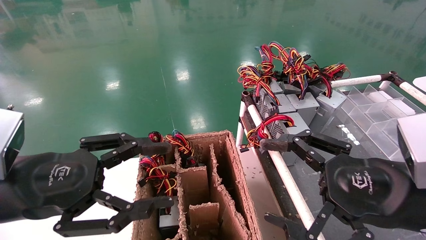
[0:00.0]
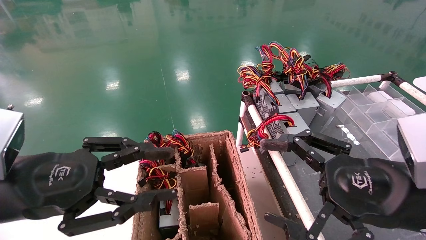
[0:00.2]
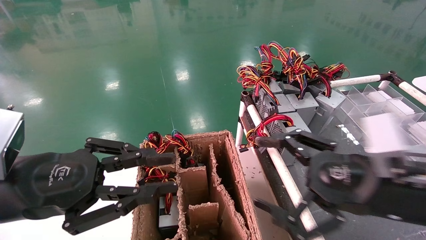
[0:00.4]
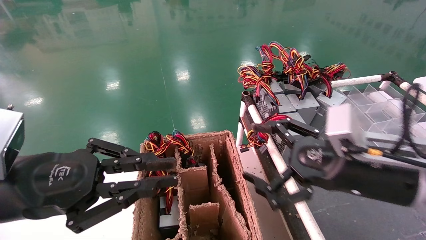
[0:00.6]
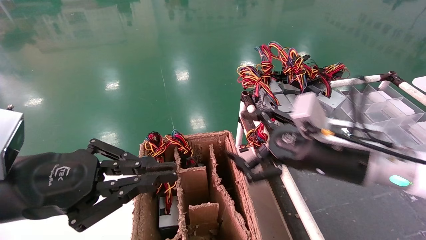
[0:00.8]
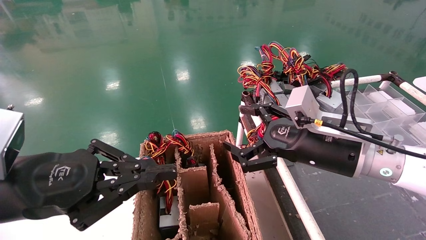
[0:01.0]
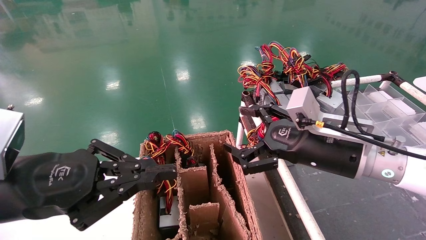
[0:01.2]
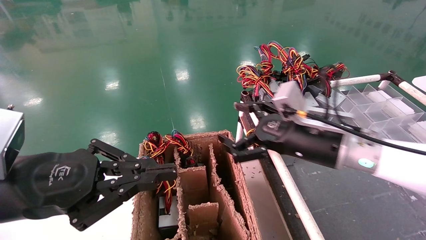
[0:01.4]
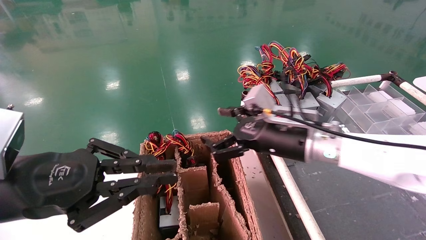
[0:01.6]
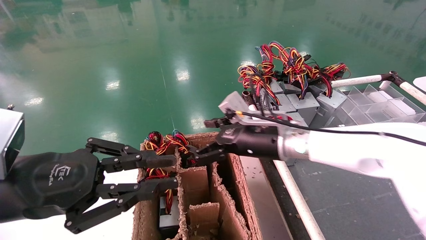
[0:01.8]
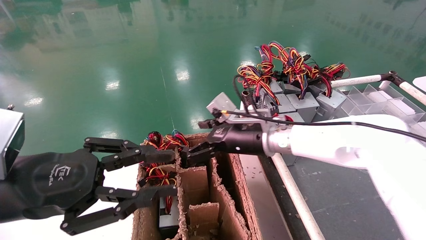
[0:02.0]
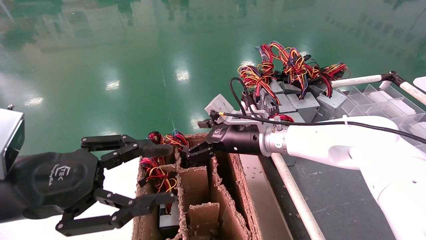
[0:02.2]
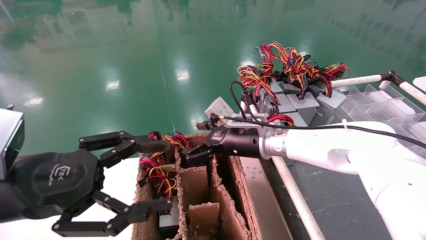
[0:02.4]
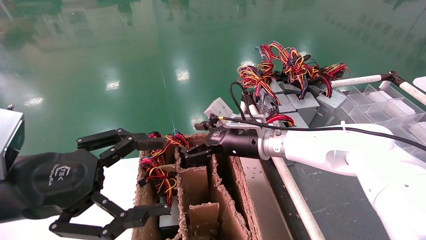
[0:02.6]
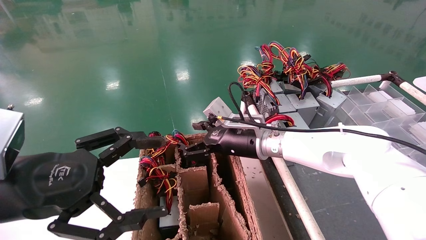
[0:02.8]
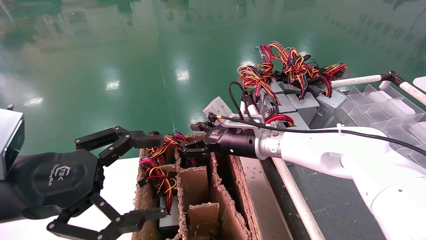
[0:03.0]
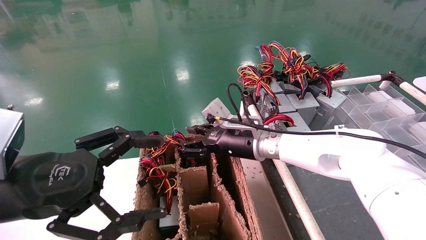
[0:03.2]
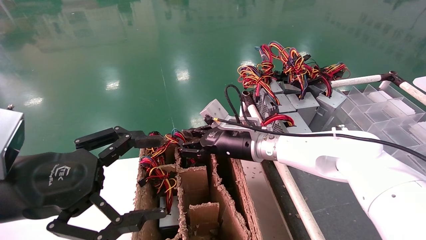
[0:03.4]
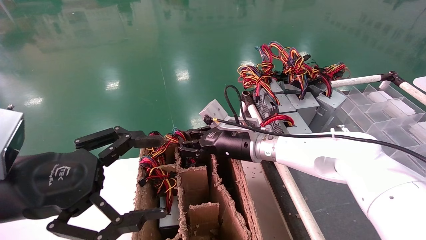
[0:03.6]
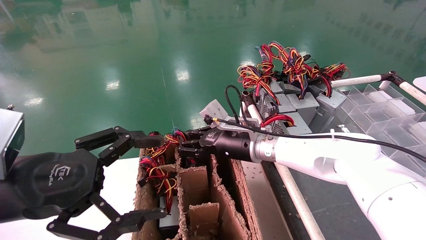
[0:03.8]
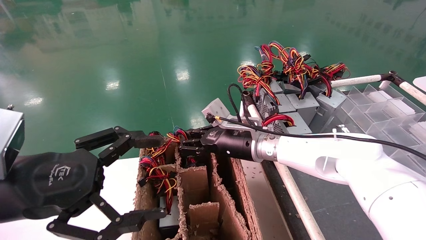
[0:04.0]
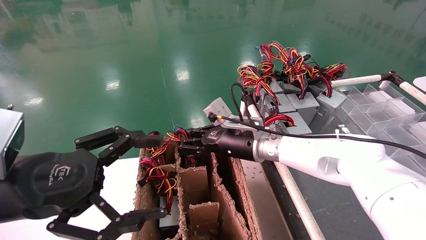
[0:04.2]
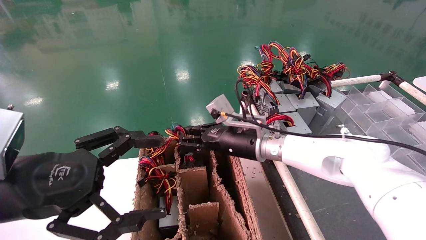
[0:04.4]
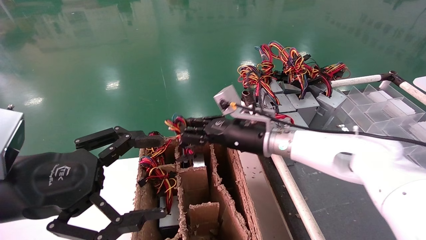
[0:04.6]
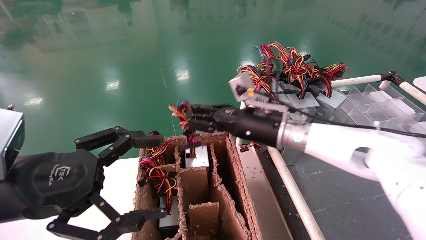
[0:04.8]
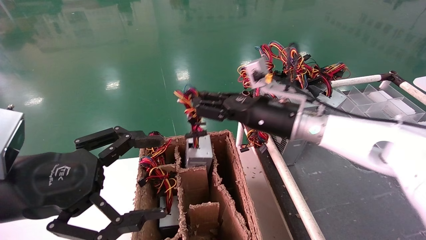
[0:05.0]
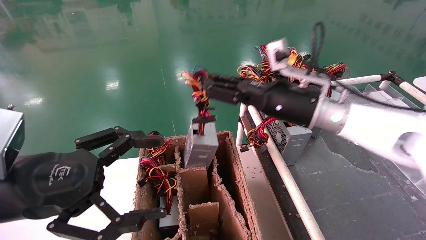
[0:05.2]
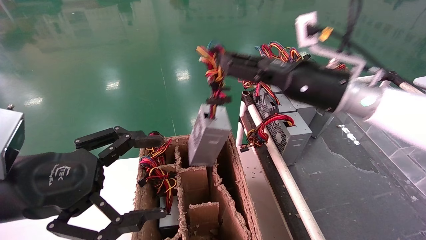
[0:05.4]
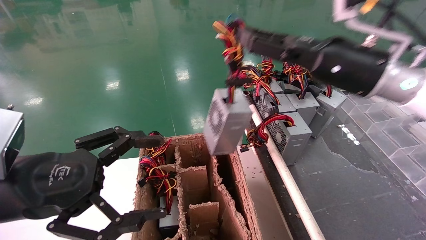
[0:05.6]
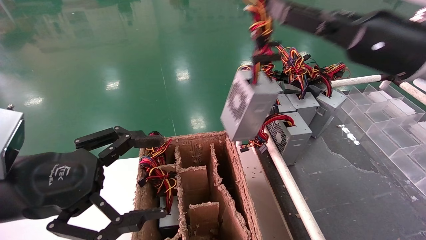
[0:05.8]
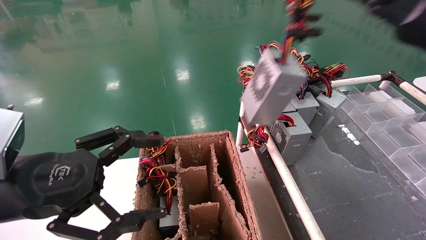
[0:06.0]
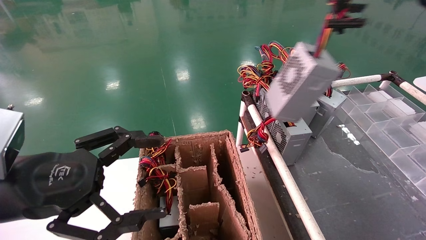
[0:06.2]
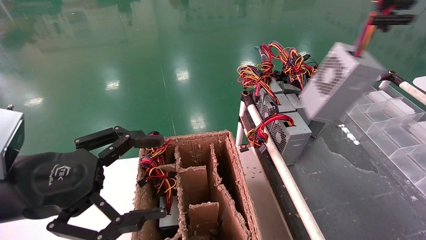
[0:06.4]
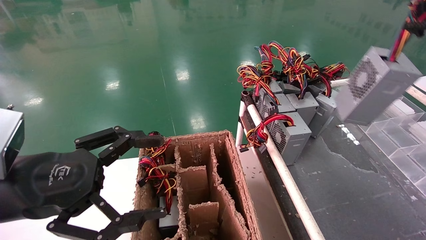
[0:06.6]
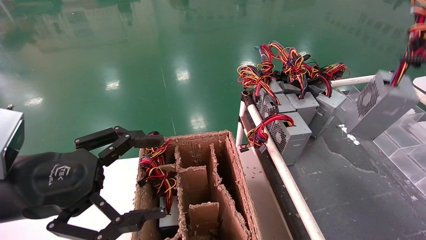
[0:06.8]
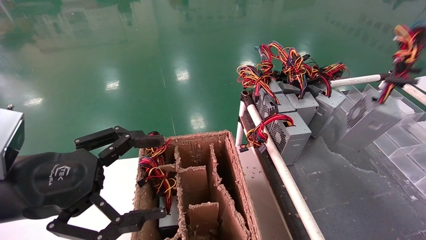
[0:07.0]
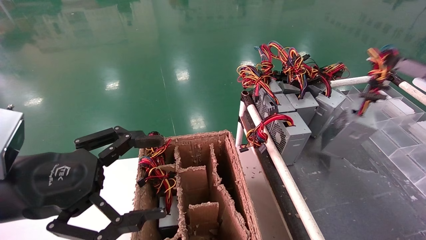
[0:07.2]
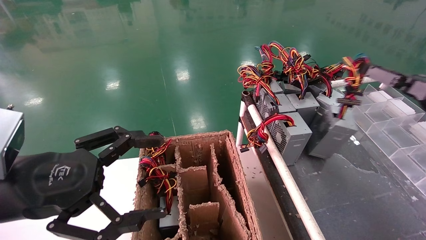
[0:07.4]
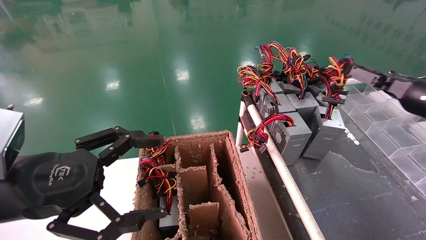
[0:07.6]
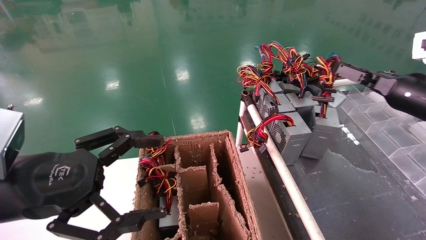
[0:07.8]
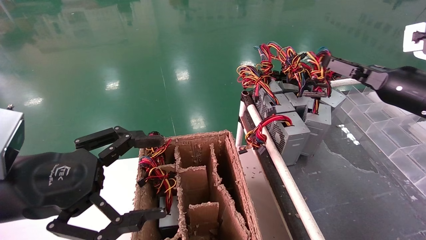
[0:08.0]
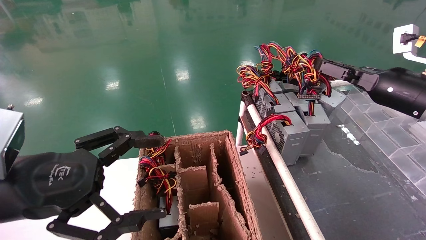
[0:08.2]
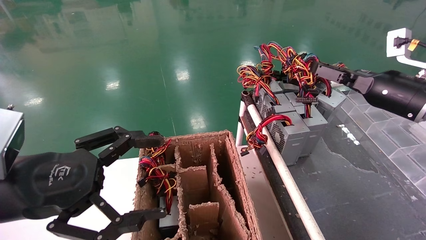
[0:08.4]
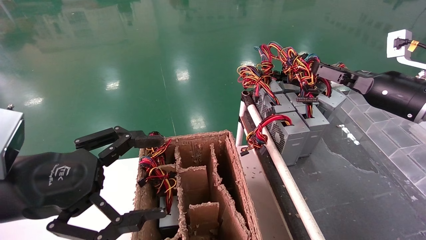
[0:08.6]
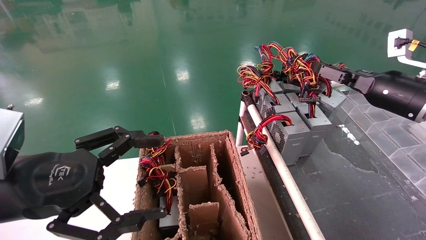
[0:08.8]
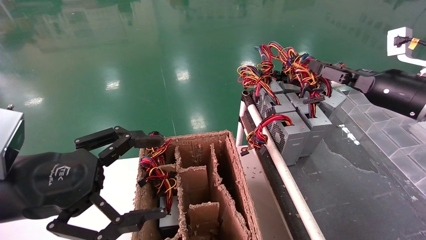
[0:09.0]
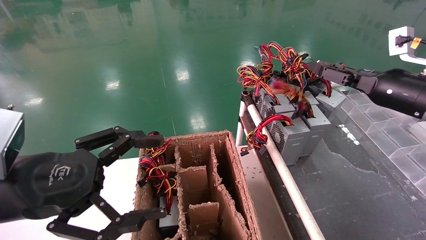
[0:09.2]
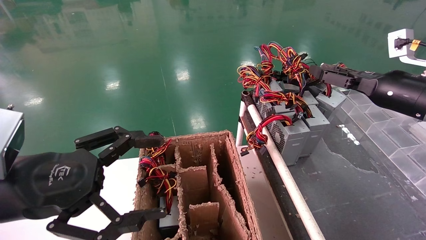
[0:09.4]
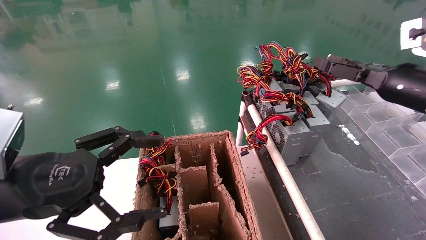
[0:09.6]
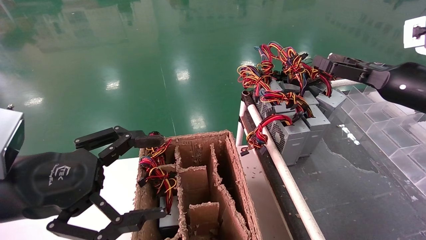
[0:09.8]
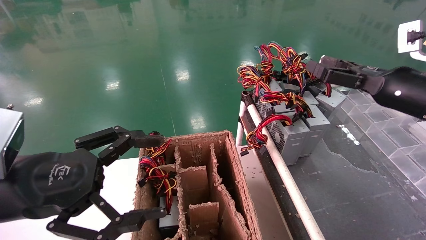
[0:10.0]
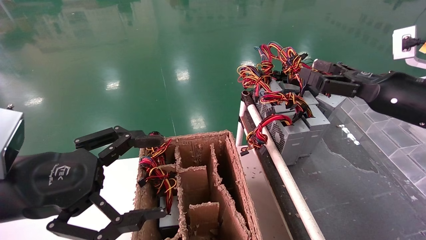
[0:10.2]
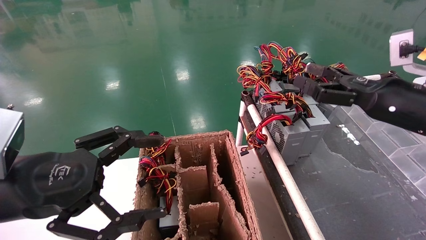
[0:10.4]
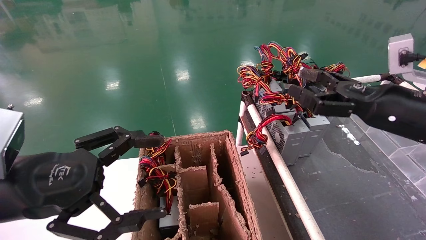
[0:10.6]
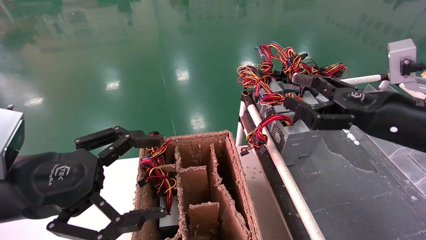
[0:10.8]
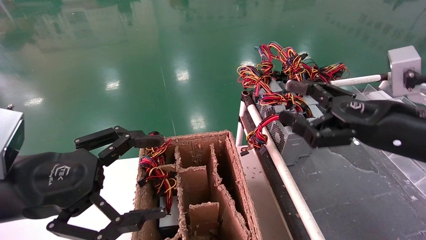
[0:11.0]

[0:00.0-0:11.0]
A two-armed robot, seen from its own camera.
Step, 0:01.0 to 0:03.8: Grab and lift the power supply from the large box.
Step, 0:04.0 to 0:09.2: Place the power supply on the operating table.
0:00.0 to 0:01.6: The right gripper is displaced forward and to the left by approximately 20 cm, while the left gripper closes up.
0:01.6 to 0:03.2: The right gripper moves to the left and forward, approximately 10 cm, and closes. Meanwhile the left gripper opens its fingers.
0:03.2 to 0:04.8: The right gripper changes place by approximately 5 cm, and closes up.
0:04.8 to 0:06.2: The right gripper travels to the right, upward and backward by roughly 35 cm.
0:06.2 to 0:07.8: The right gripper travels downward and forward by approximately 15 cm.
0:07.8 to 0:09.4: The grippers make only small movements.
0:09.4 to 0:11.0: The right gripper is displaced backward and to the left by approximately 10 cm, and opens.

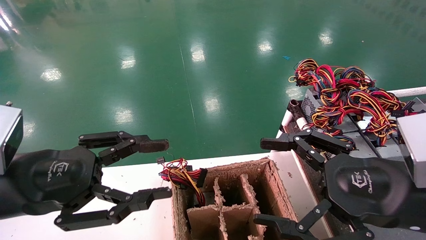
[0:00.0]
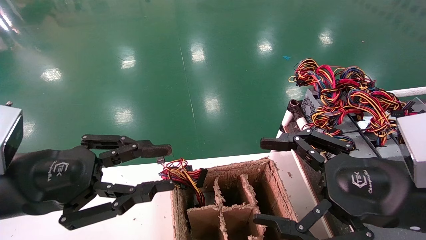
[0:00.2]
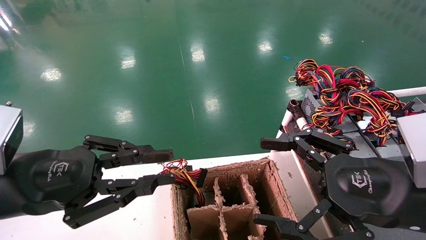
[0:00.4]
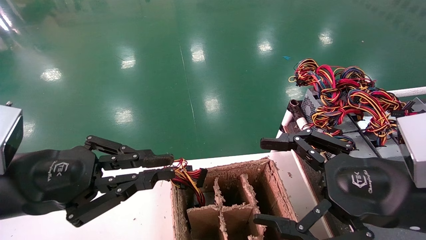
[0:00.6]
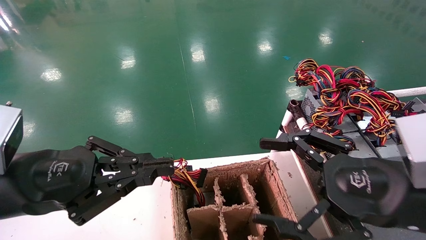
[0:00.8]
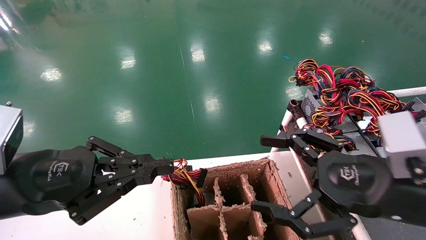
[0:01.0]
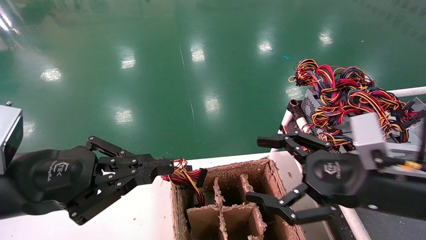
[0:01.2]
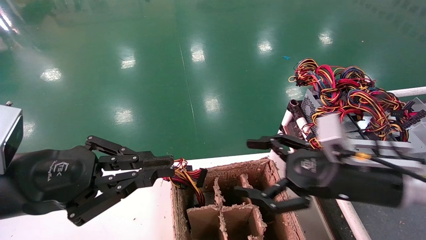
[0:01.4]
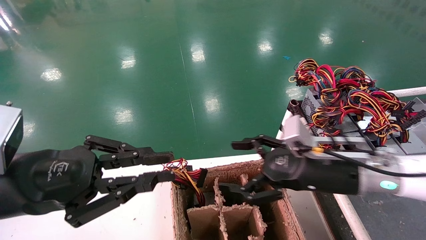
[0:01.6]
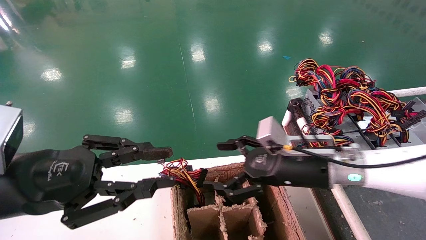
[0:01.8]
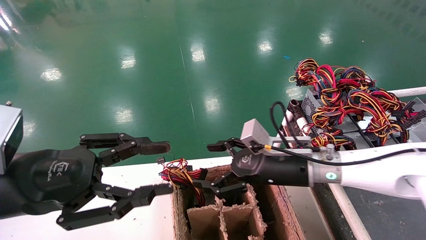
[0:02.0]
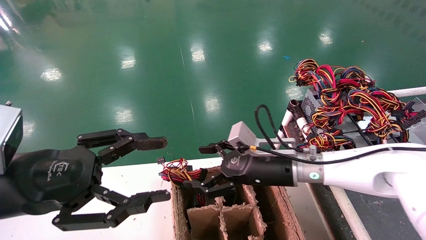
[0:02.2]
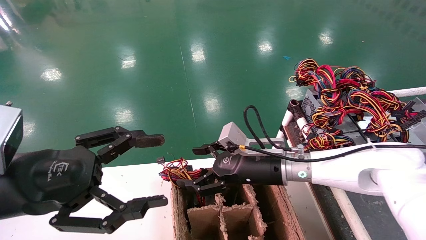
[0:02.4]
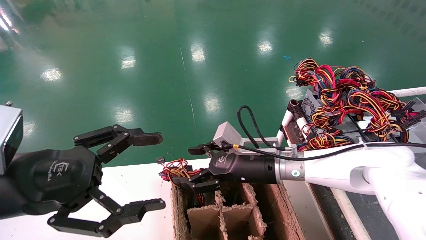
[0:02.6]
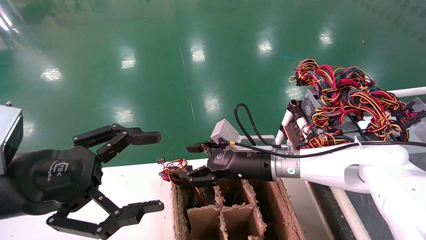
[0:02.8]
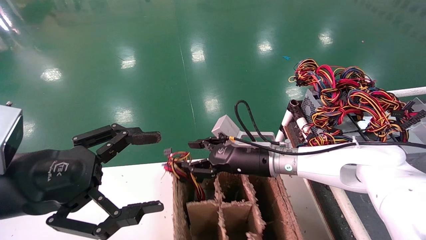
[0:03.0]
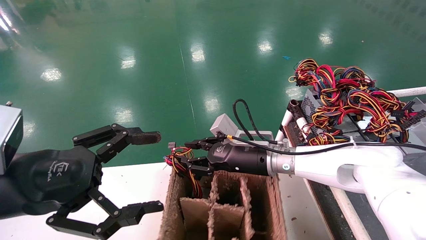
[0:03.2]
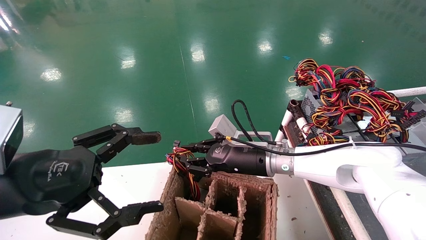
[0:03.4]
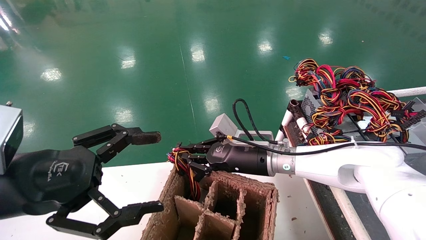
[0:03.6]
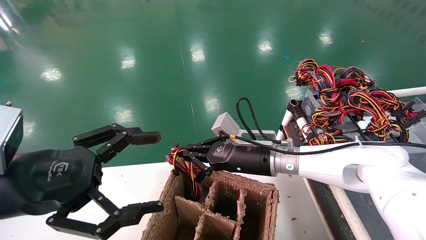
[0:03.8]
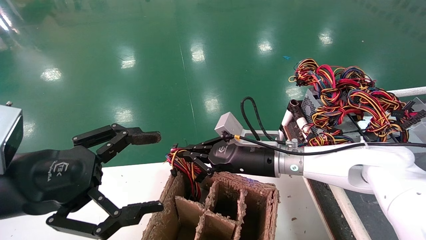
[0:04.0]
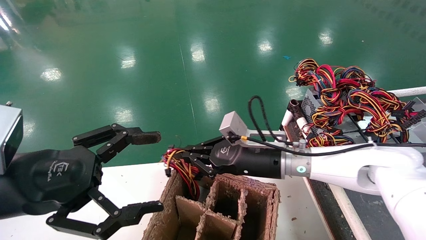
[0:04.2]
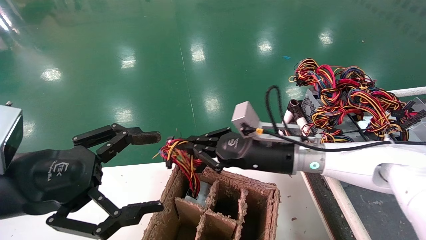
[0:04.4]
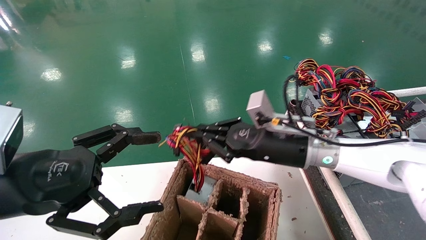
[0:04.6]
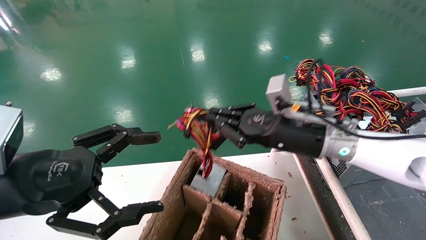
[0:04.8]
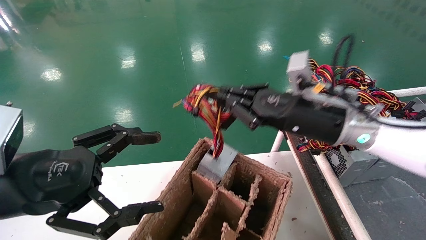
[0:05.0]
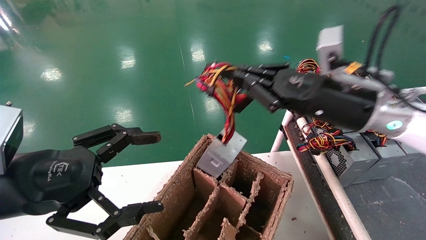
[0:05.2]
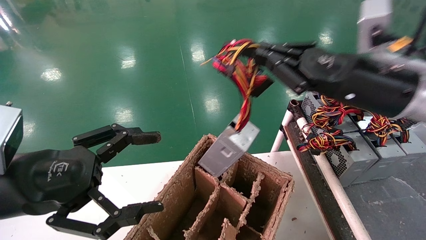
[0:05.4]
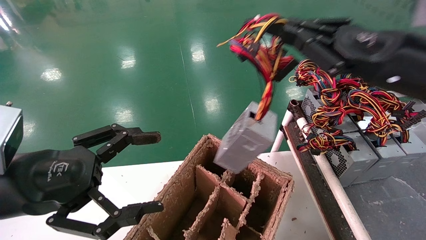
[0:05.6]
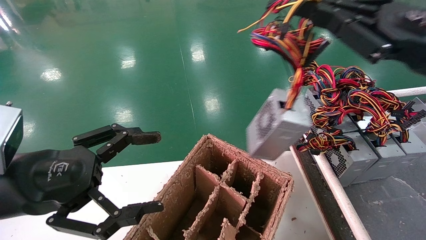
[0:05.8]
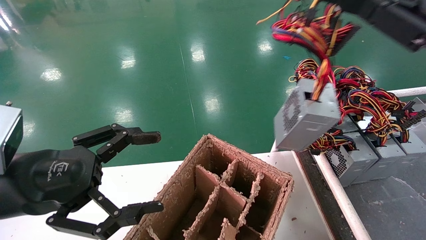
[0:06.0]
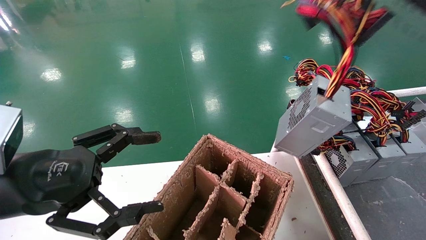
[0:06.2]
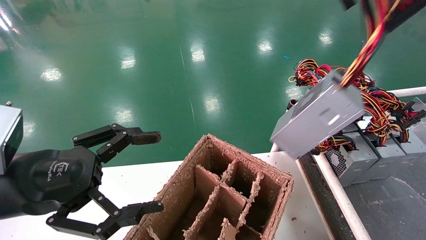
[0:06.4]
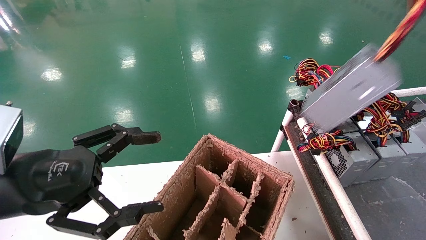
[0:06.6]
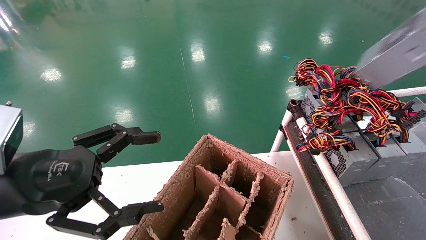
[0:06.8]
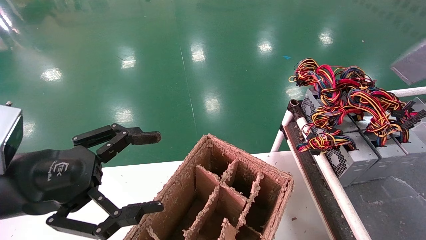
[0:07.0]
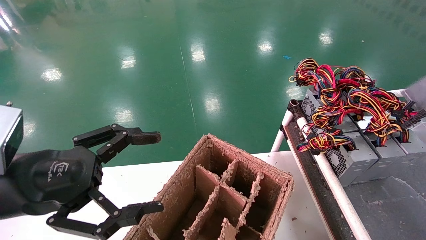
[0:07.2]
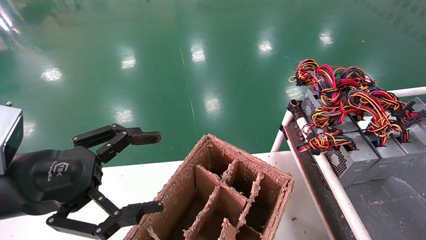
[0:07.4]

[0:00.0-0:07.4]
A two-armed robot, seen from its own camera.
Step, 0:01.2 to 0:03.8: Grab and lift the power supply from the large box.
0:00.0 to 0:01.4: The left gripper closes up. Meanwhile the right gripper heads forward, covering some 10 cm.
0:01.4 to 0:03.0: The left gripper opens. Meanwhile the right gripper shifts approximately 20 cm to the left and forward, and closes up.
0:03.0 to 0:04.4: The right gripper ends up approximately 5 cm from where it was, and closes up.
0:04.4 to 0:06.0: The right gripper goes roughly 30 cm to the right, upward and backward.
0:06.0 to 0:07.4: The right gripper moves to the right, roughly 25 cm.
